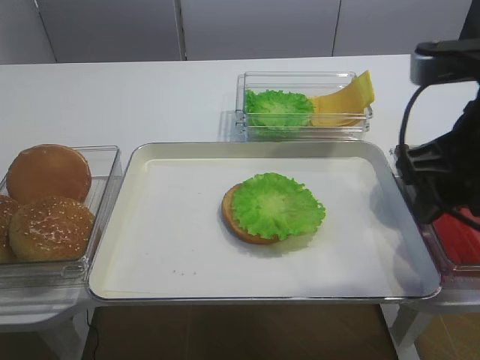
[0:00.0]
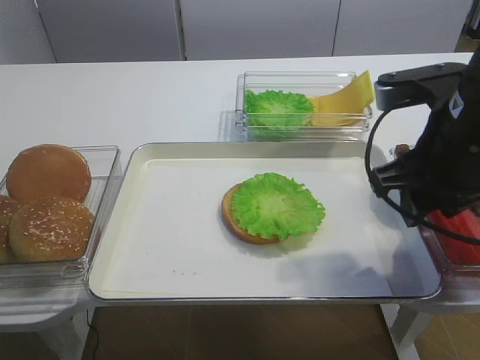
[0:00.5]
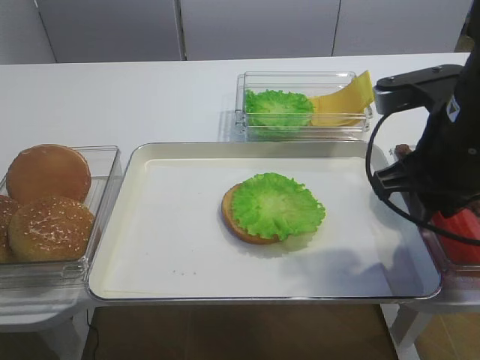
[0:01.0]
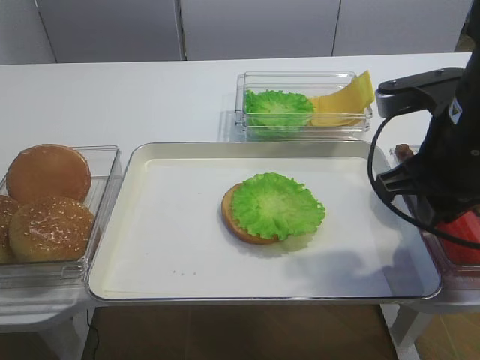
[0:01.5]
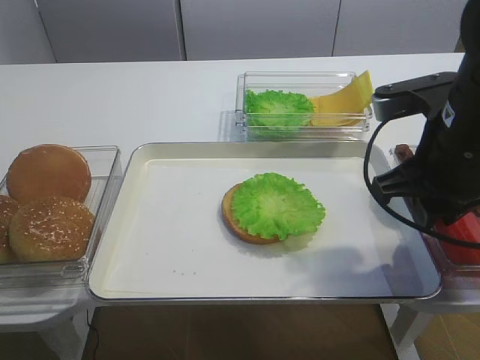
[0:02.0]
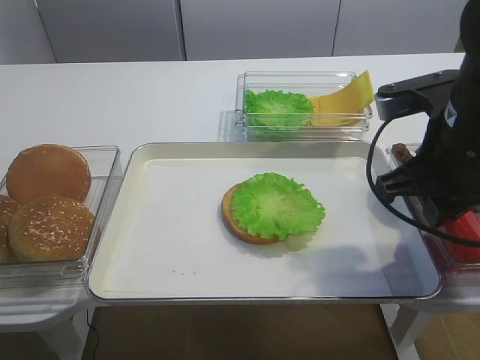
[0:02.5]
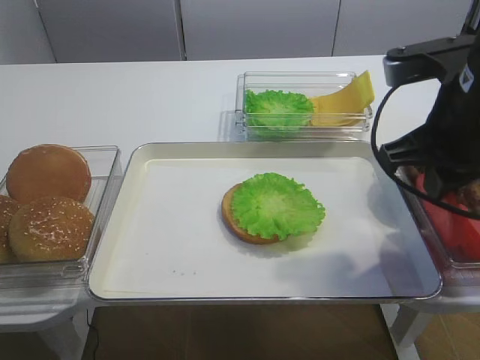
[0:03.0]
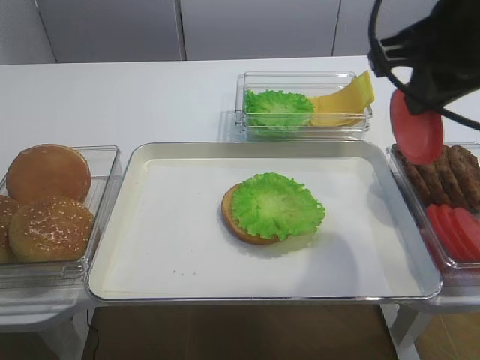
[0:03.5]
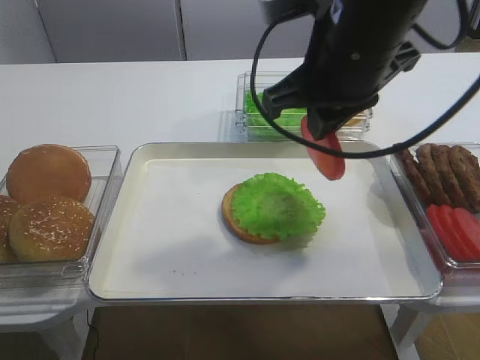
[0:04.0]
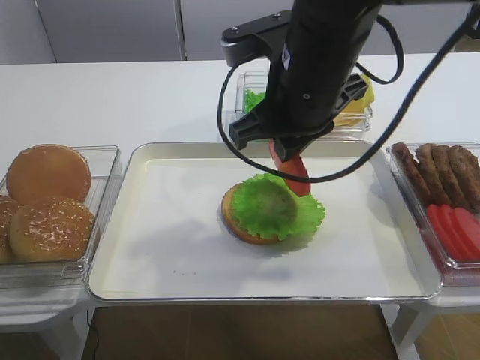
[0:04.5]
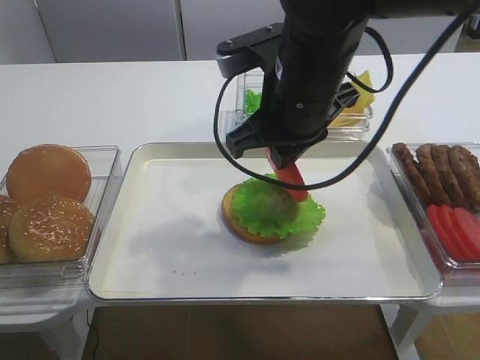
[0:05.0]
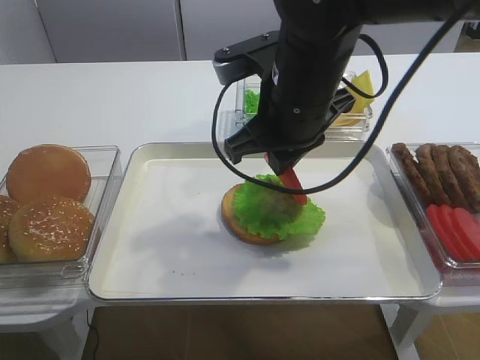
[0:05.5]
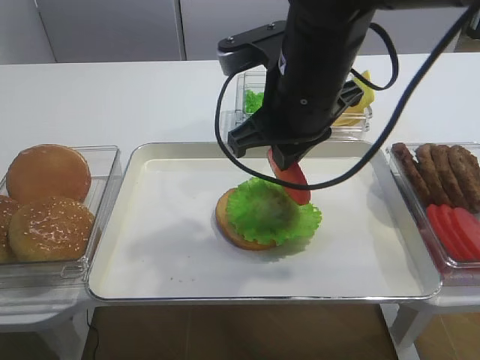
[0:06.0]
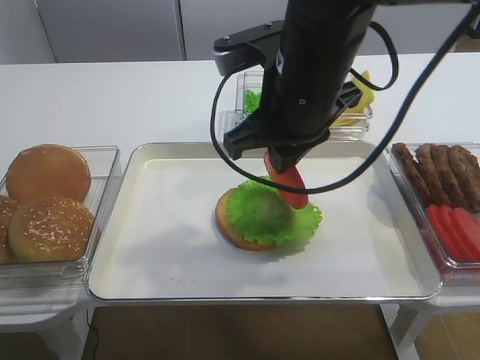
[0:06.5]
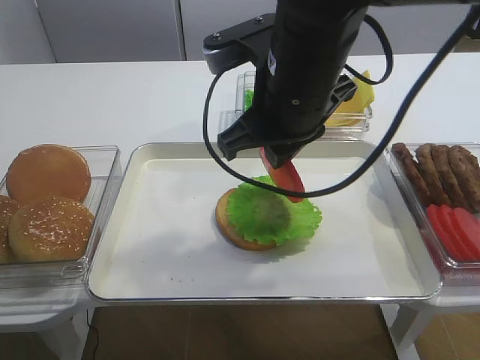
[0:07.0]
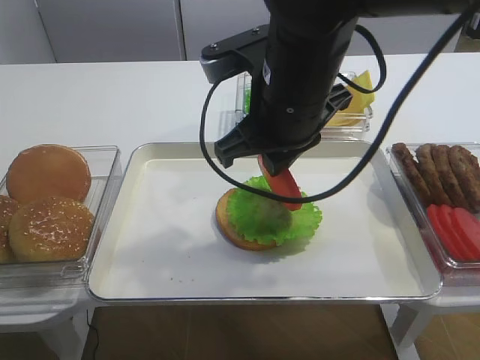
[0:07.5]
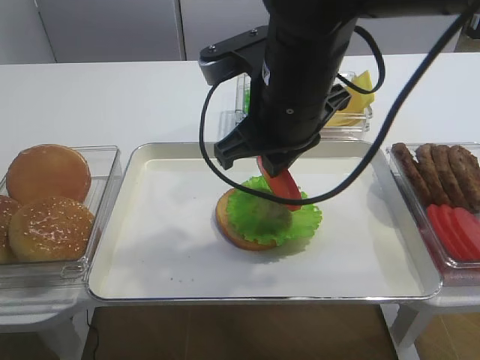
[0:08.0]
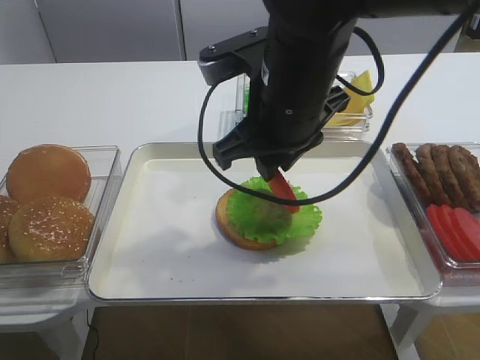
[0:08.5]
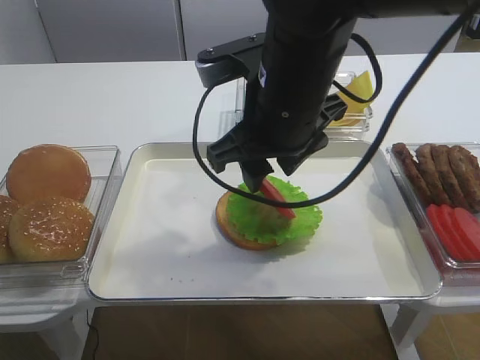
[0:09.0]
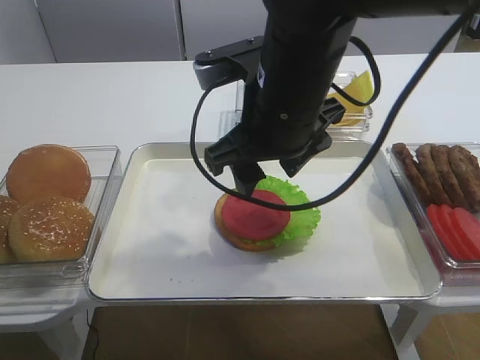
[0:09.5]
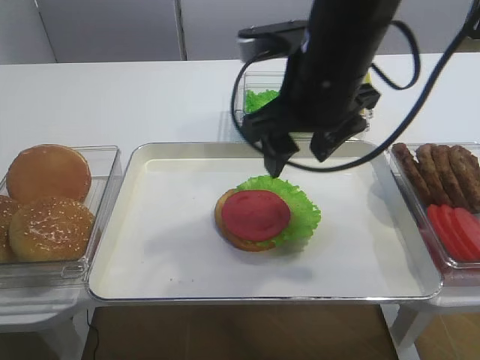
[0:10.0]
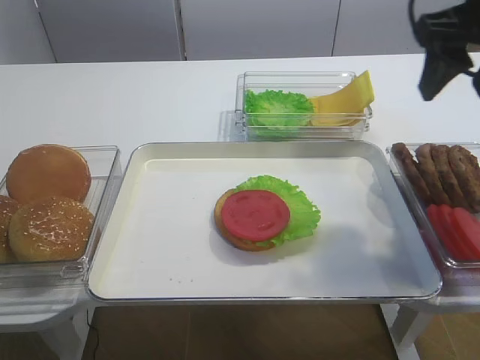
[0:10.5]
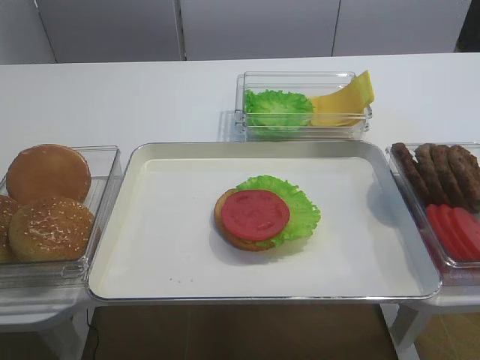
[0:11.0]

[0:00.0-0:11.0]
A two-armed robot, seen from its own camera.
Step, 0:00.0 to 0:03.0: Pick up the tomato slice with the right gripper.
Step, 0:03.5 to 0:09.5: Place the tomato slice on the lettuce leaf with the right gripper.
0:00.0 to 0:02.0: The right gripper moves roughly 5 cm, and closes up.
0:02.0 to 0:03.5: The right gripper is displaced upward by approximately 10 cm.
0:03.5 to 0:05.5: The right gripper moves to the left, downward and forward, some 15 cm.
0:05.5 to 0:07.5: The grippers stay close to where they were, moving slightly.
0:07.5 to 0:09.0: The right gripper opens up.
0:09.0 to 0:11.0: The right gripper travels to the right and backward by approximately 25 cm.

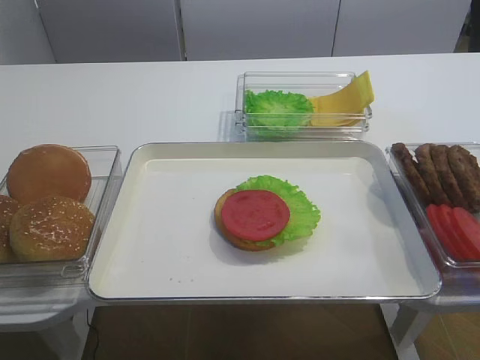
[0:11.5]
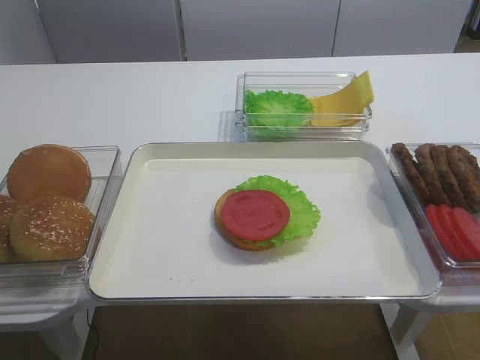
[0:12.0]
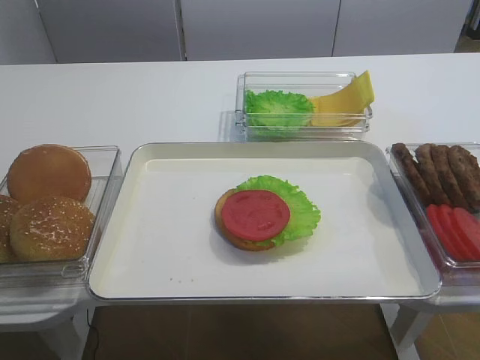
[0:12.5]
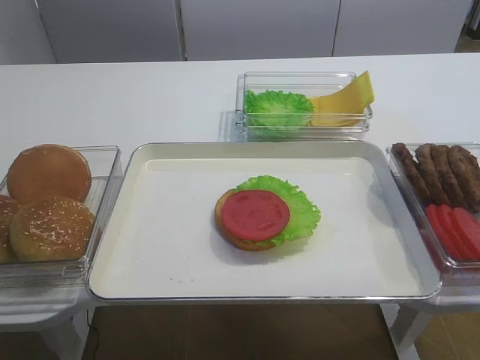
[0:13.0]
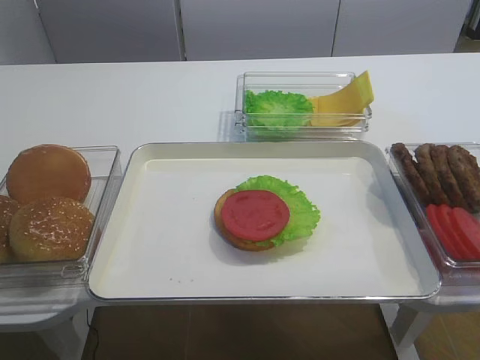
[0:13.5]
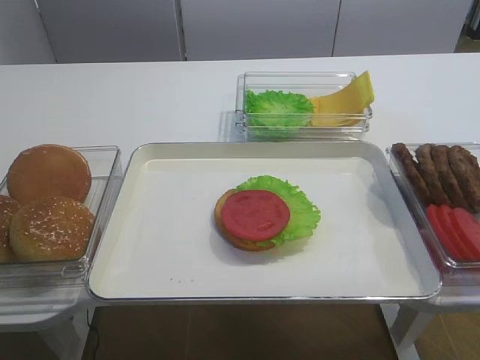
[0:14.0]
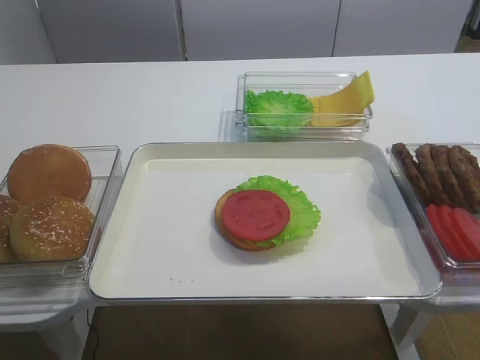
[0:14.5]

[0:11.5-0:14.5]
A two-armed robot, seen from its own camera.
0:13.0 to 0:14.5: The two grippers keep their place.

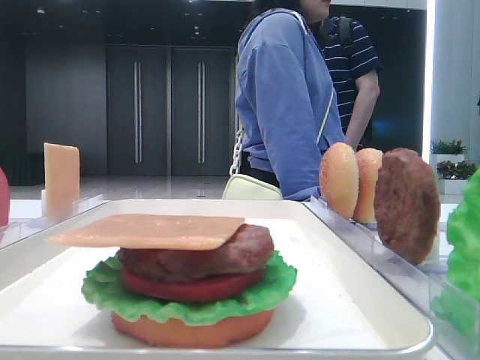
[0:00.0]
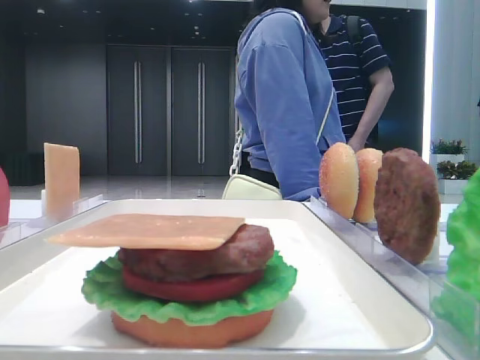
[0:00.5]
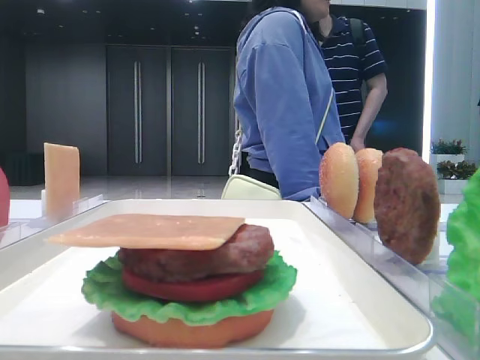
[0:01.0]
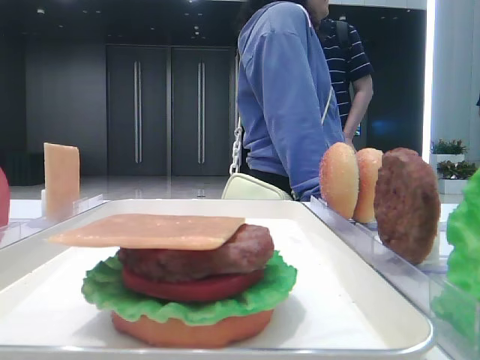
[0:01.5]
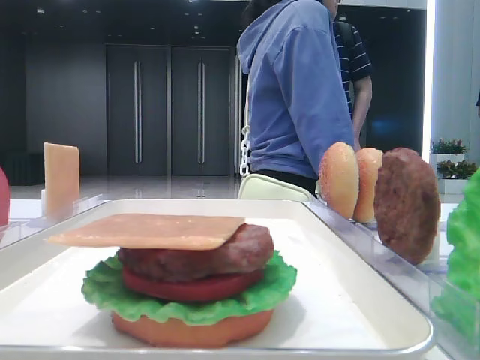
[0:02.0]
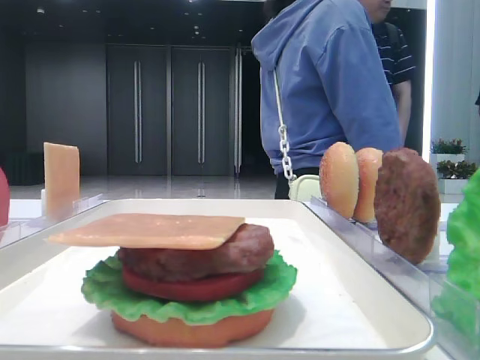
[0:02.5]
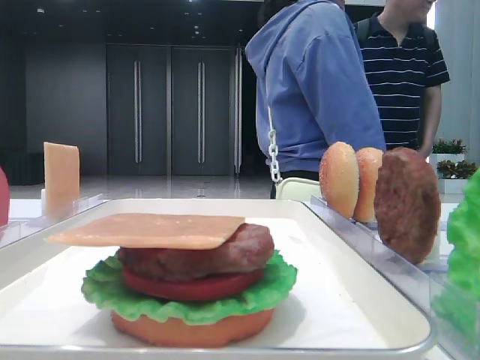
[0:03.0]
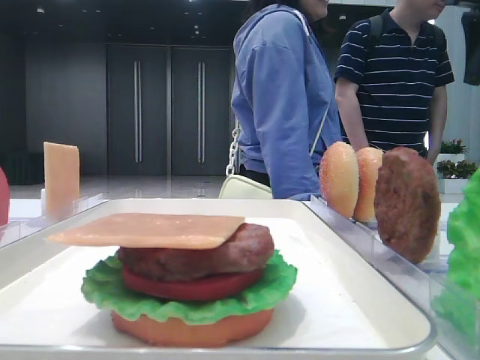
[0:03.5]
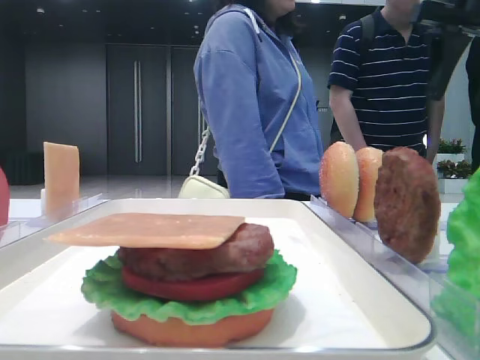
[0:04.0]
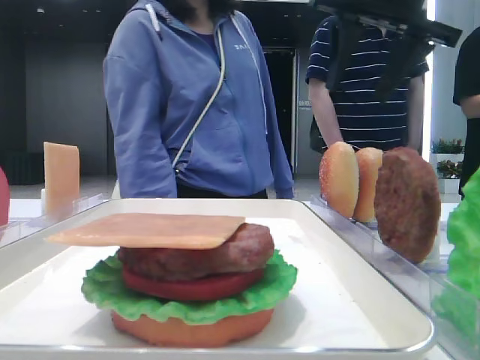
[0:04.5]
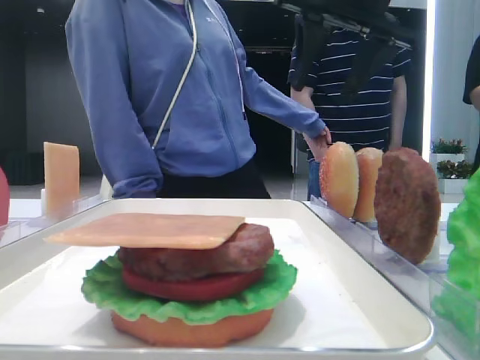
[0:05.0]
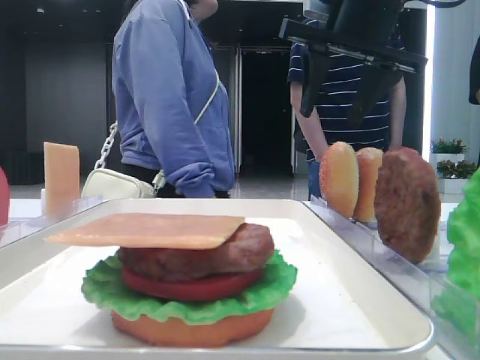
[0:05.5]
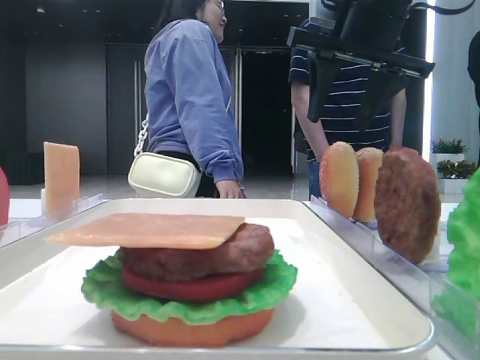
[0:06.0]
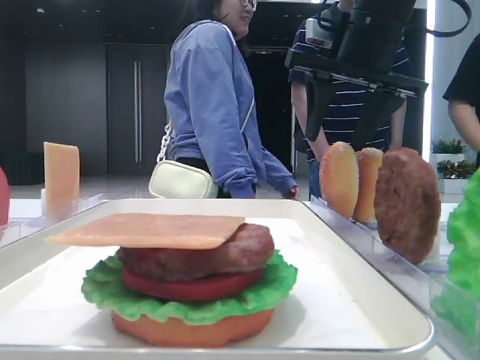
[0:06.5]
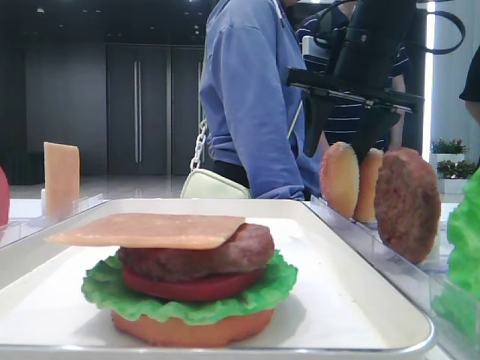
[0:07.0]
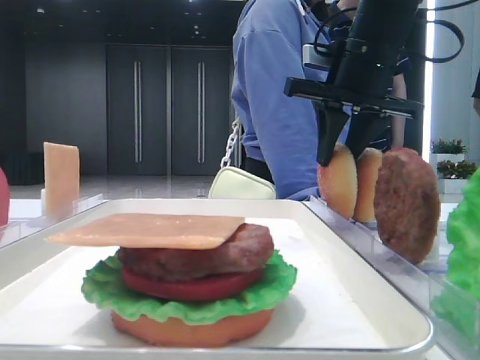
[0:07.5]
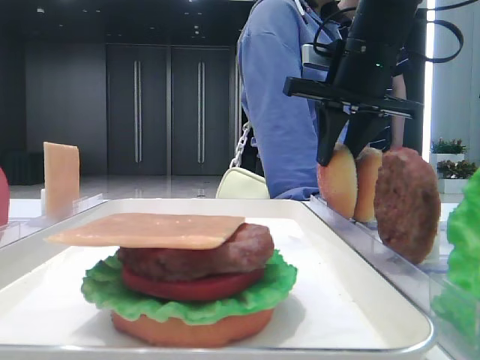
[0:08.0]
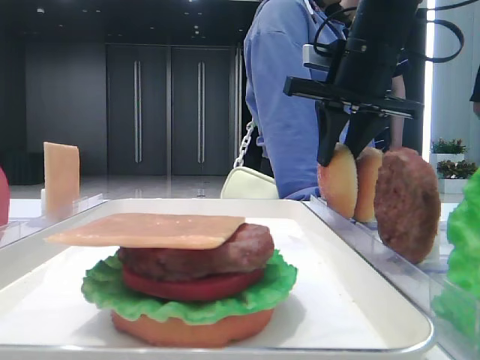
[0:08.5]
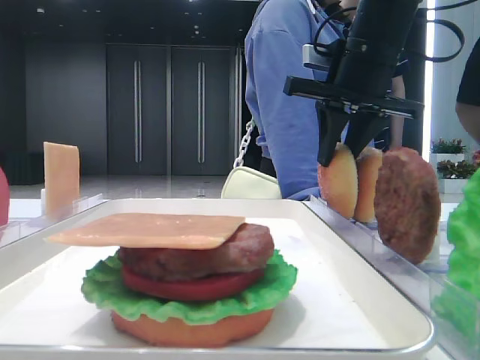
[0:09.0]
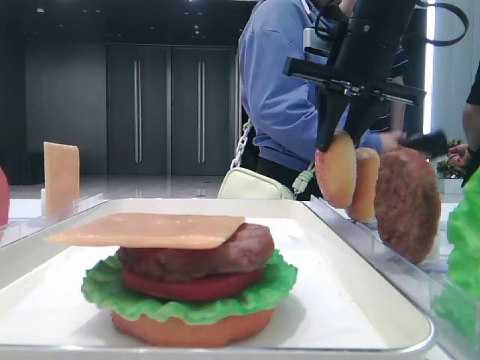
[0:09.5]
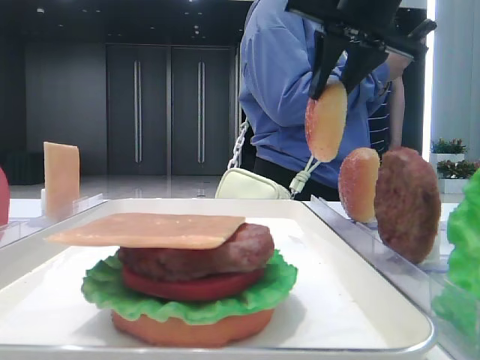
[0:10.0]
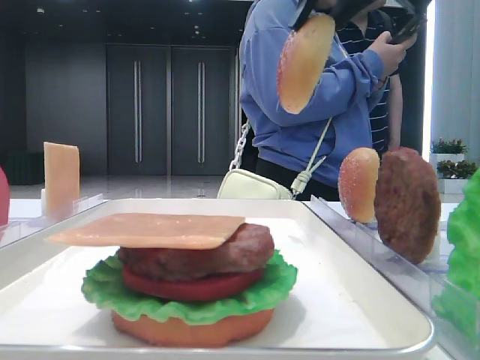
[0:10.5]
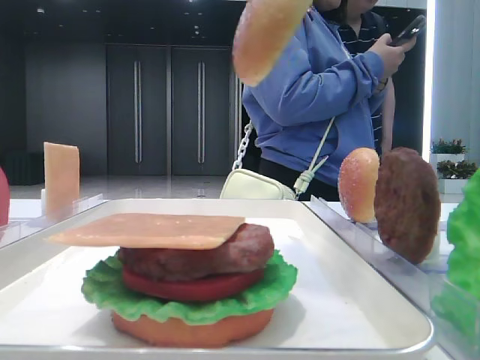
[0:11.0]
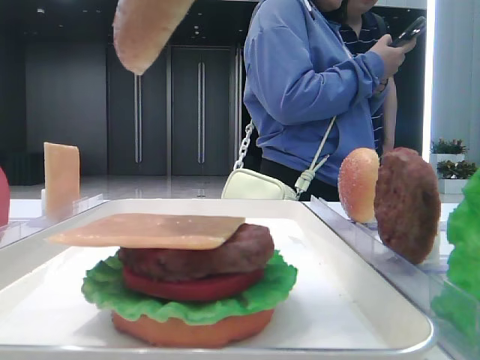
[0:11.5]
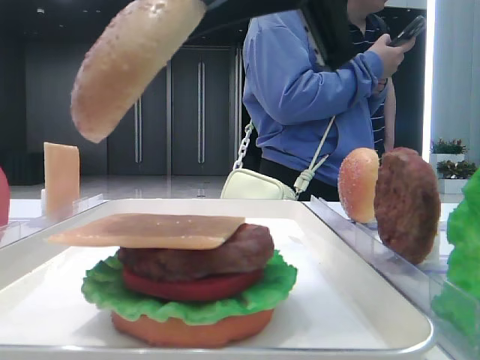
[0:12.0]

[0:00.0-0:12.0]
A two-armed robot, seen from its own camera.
Step, 0:00.0 to 0:08.0: Pick up the top bread slice with the right hand.
0:02.0 to 0:04.0: The right gripper goes approximately 30 cm forward.
0:04.0 to 0:06.0: The right gripper heads to the left, covering about 10 cm.
0:06.0 to 0:08.0: The right gripper closes its fingers.
0:08.0 to 0:10.0: The right gripper heads upward, covering about 5 cm.
0:10.0 to 0:12.0: The right gripper heads backward and to the left, covering approximately 20 cm.
